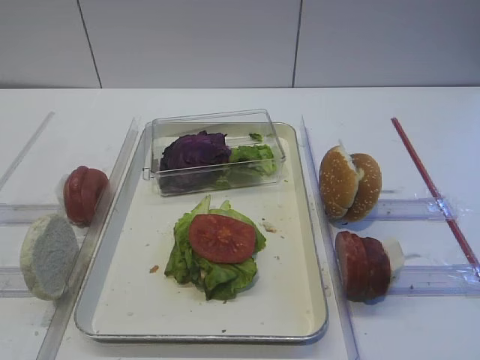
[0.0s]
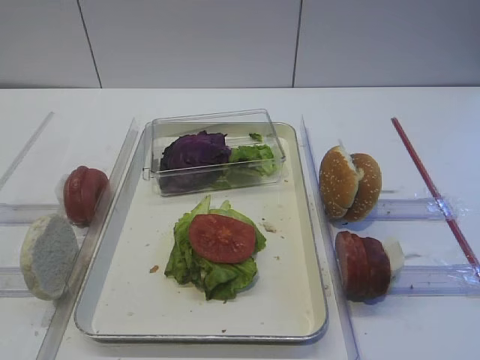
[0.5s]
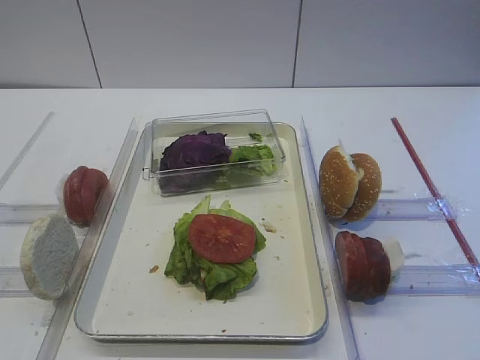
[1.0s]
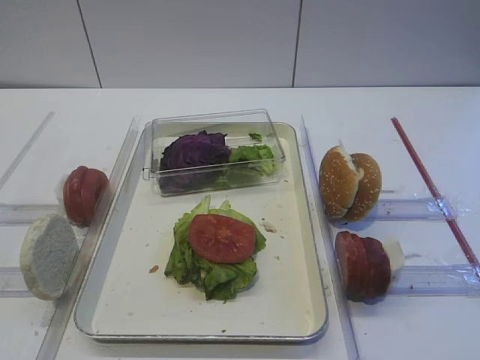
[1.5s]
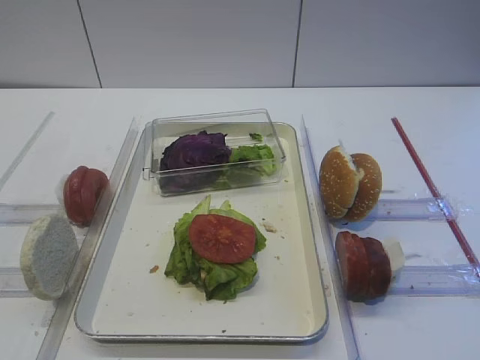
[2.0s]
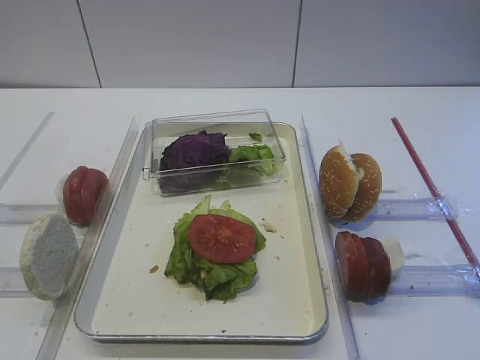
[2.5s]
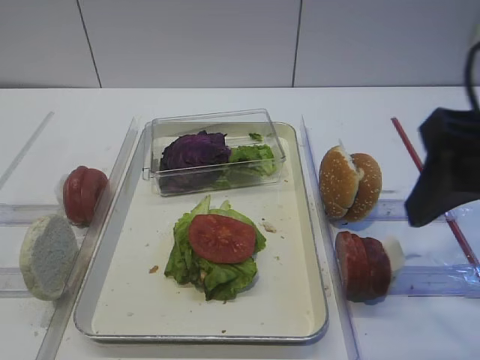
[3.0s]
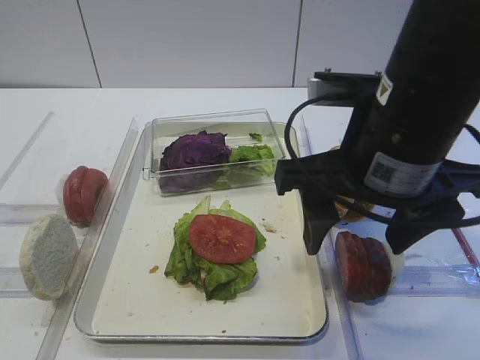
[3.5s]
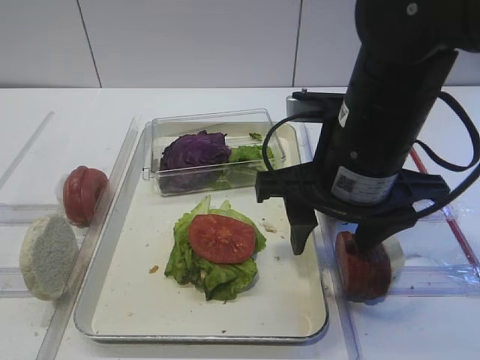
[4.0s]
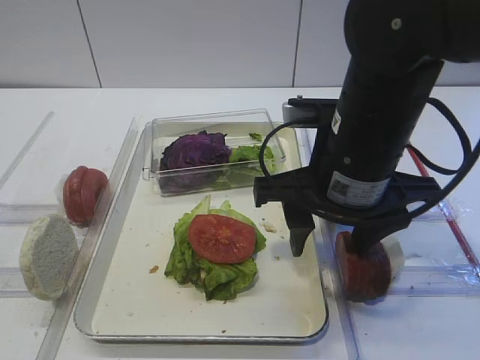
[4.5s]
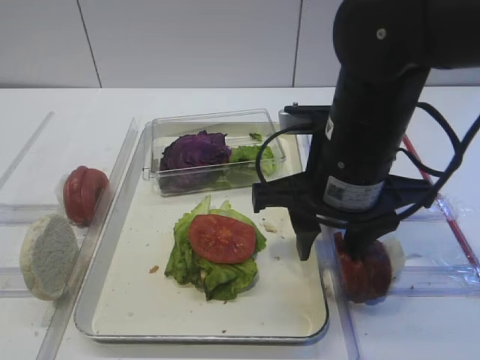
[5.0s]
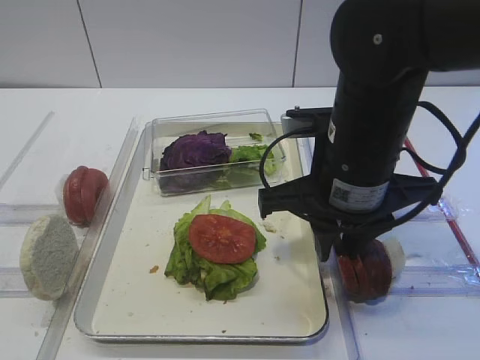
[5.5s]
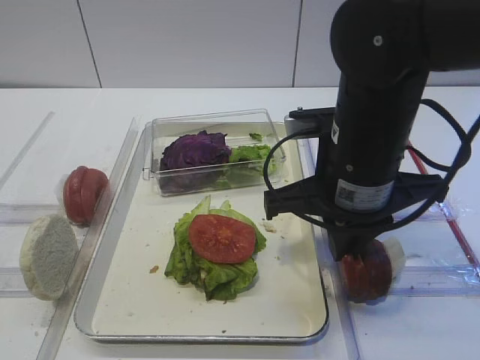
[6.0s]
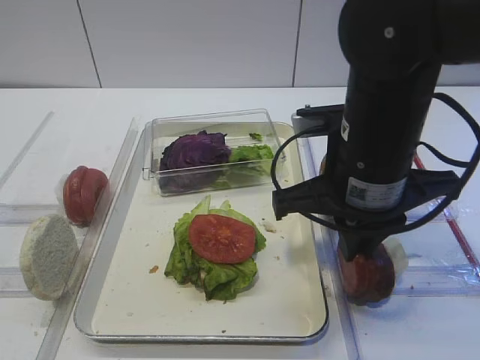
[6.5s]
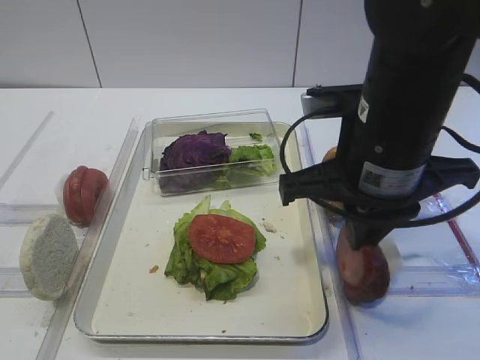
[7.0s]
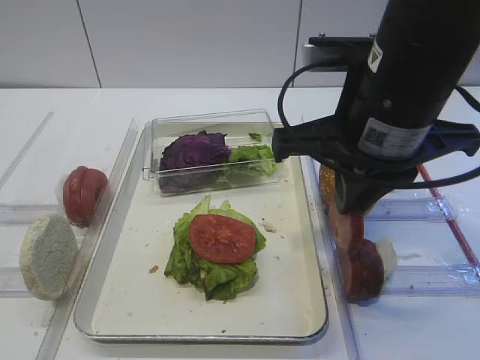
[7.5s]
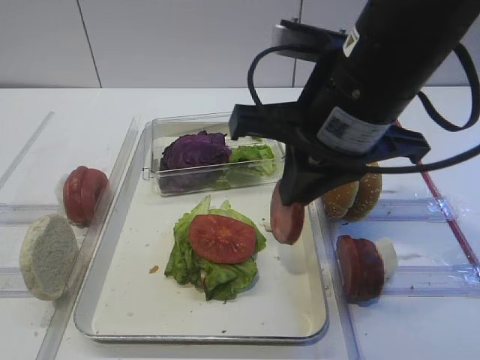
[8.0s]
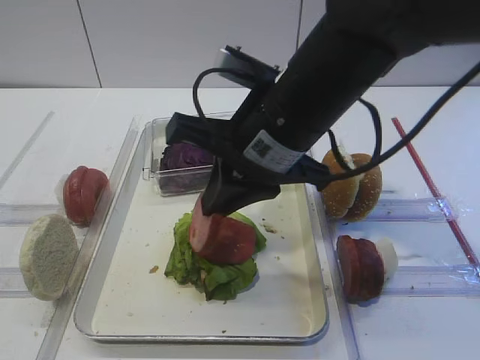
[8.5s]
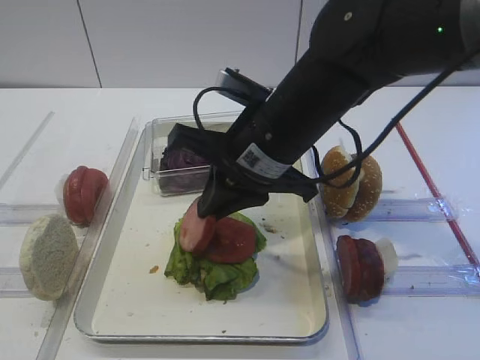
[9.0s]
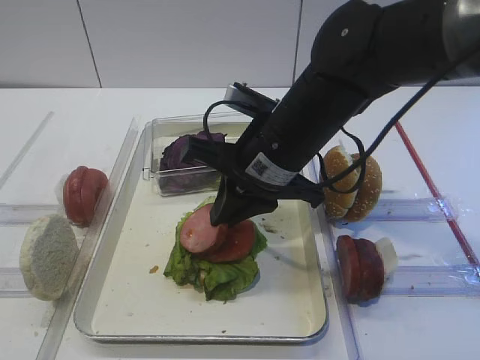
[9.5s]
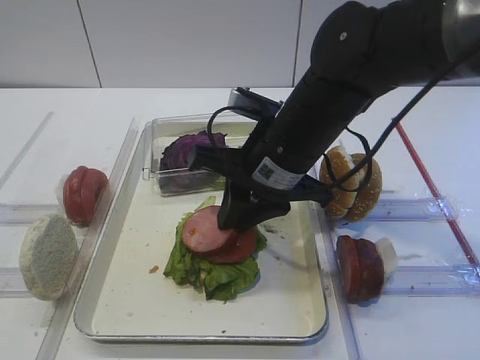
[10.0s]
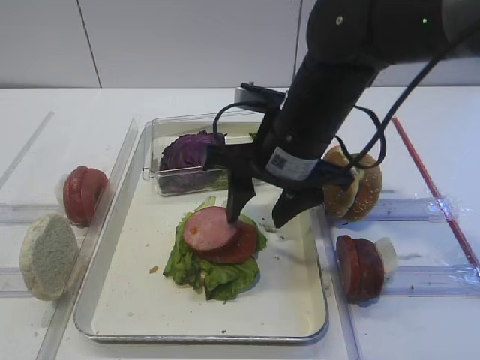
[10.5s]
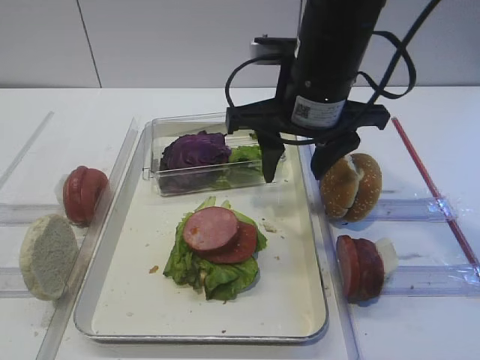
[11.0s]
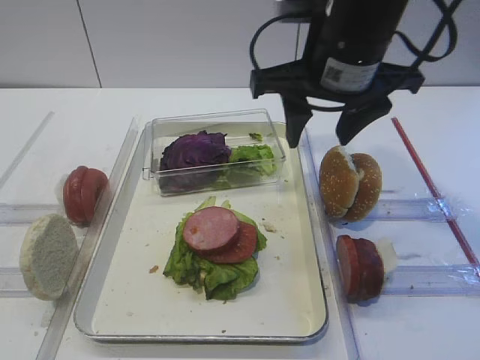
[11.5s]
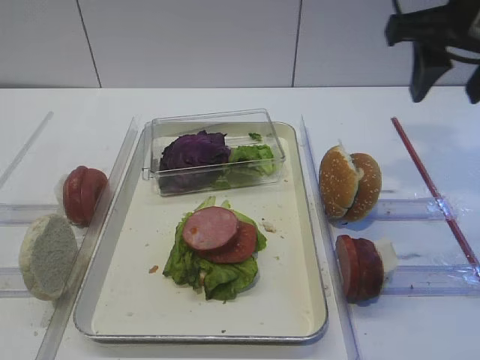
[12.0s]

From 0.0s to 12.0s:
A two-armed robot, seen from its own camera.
Step, from 0.0s to 7.0s: Pick up the cutlet with the right gripper.
Step, from 7.5s to 10.5s: Place the cutlet on the tomato slice with the right gripper.
From 2.0s to 4.0s: The right gripper heads forward and to the left, covering roughly 25 cm.
From 4.0s to 6.0s: The right gripper closes its fingers.
From 6.0s to 8.0s: The right gripper heads upward, covering about 5 cm.
From 8.0s to 10.0s: The right gripper travels downward and forward by about 10 cm.
From 10.0s to 12.0s: The right gripper moves to the right and upward, some 20 cm, and opens.

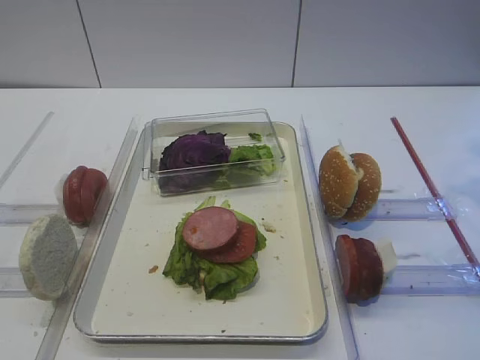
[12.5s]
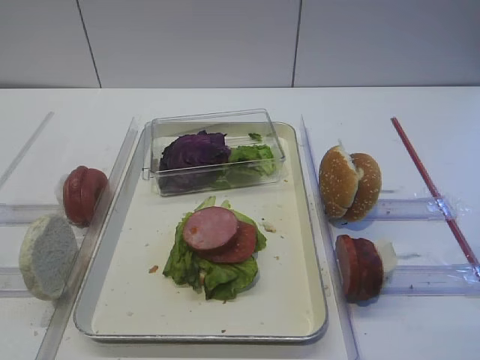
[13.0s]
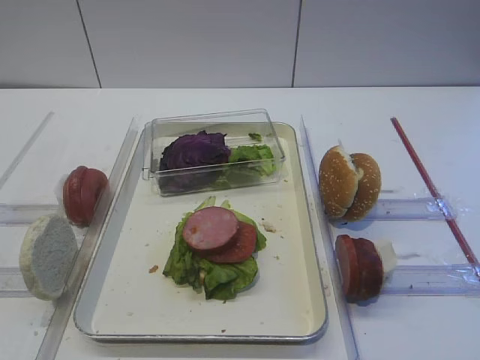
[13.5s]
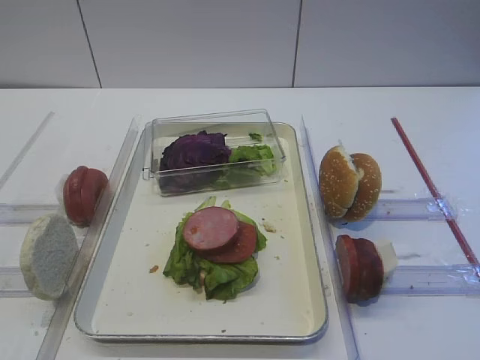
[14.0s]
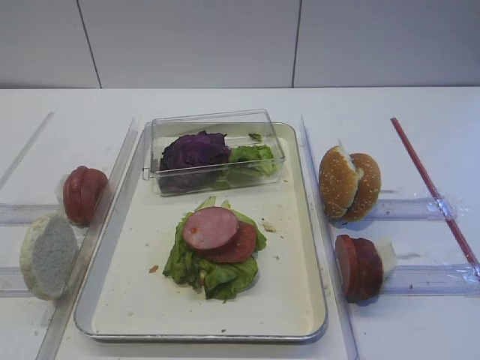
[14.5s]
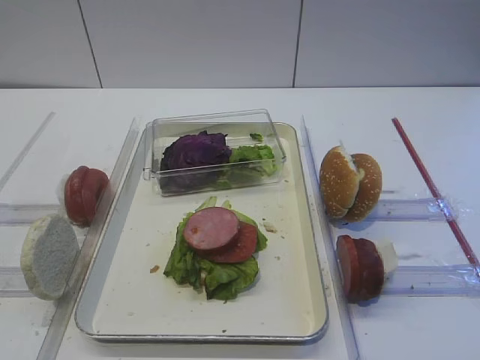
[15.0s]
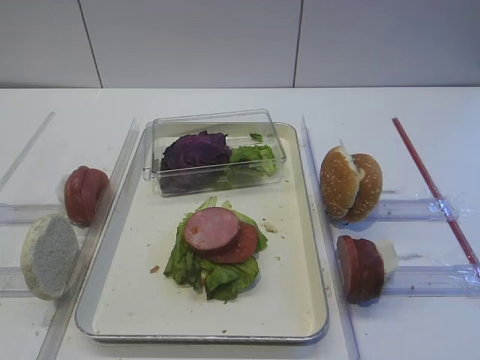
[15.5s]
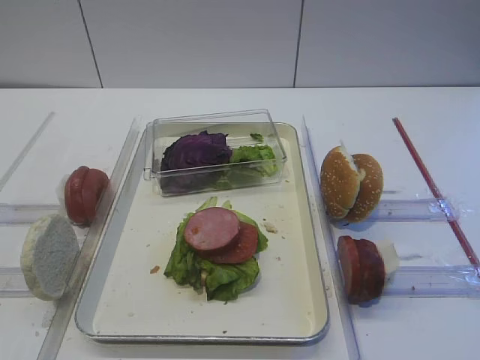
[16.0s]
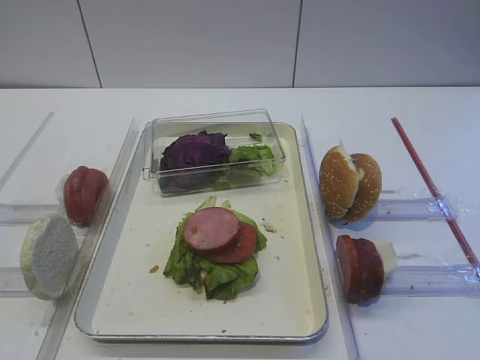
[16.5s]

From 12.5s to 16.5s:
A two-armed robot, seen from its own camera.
From 14.5s to 16.5s: The two grippers keep their place.
